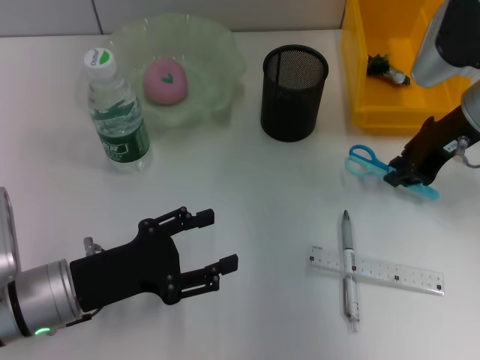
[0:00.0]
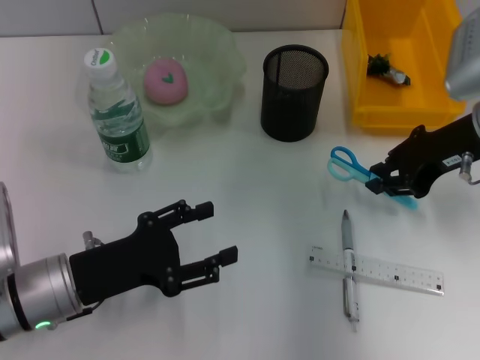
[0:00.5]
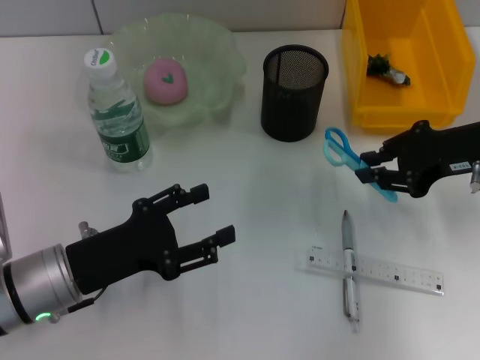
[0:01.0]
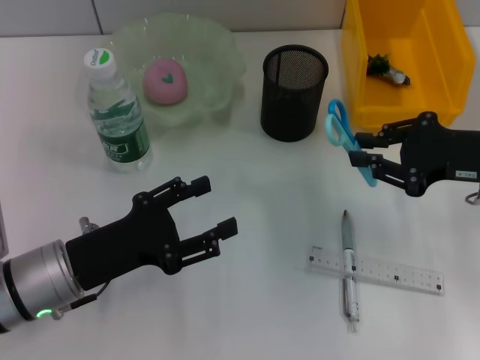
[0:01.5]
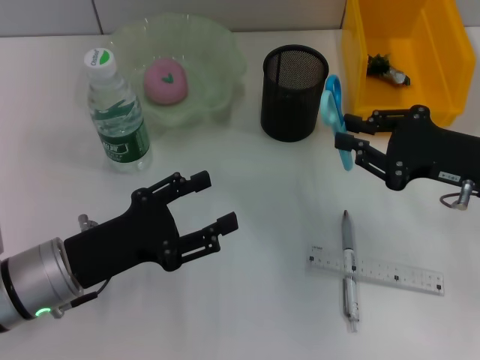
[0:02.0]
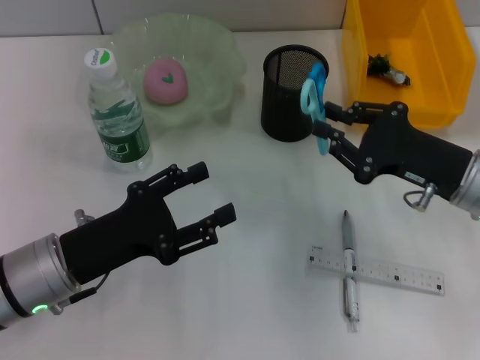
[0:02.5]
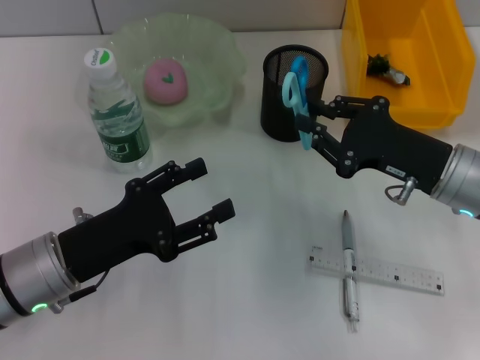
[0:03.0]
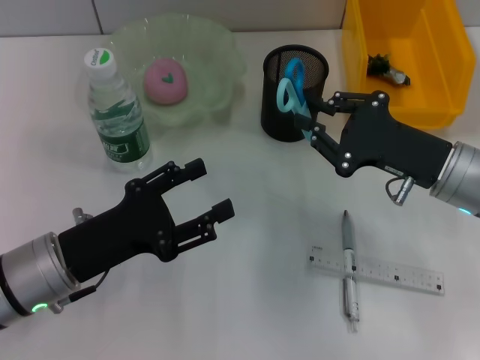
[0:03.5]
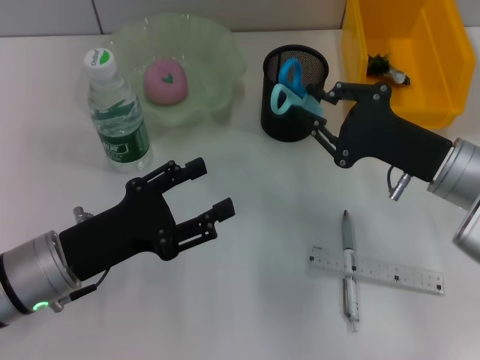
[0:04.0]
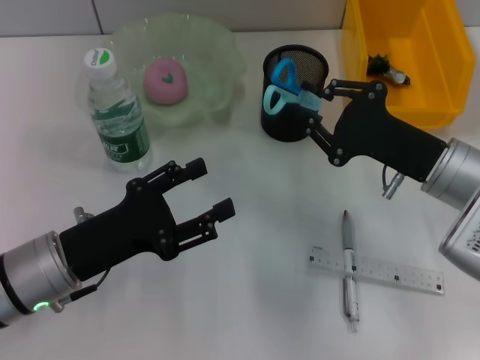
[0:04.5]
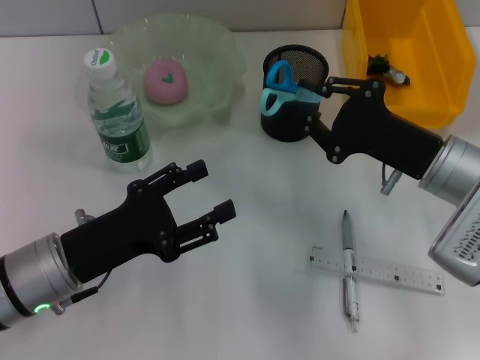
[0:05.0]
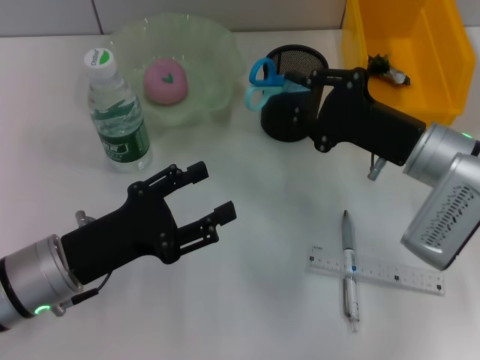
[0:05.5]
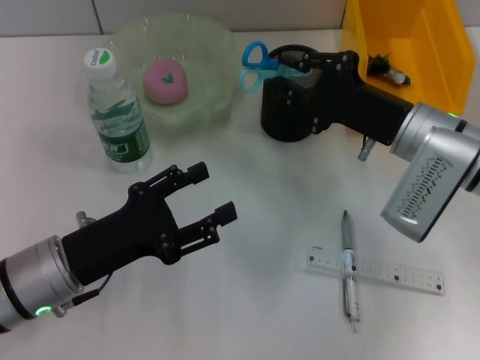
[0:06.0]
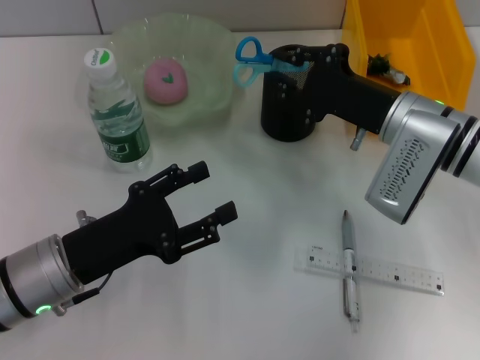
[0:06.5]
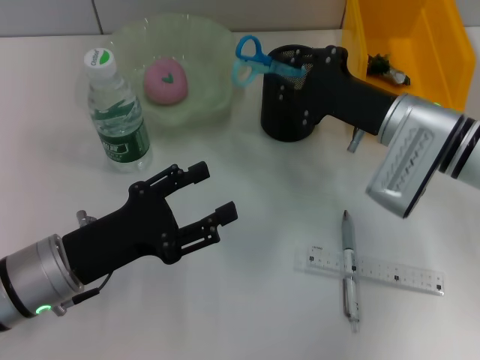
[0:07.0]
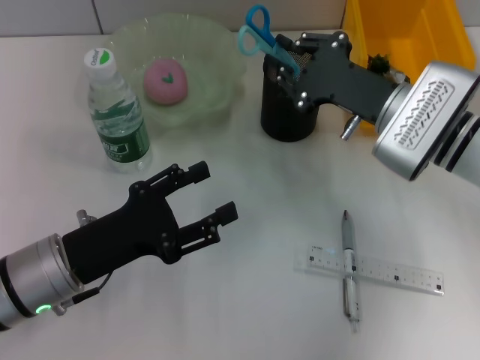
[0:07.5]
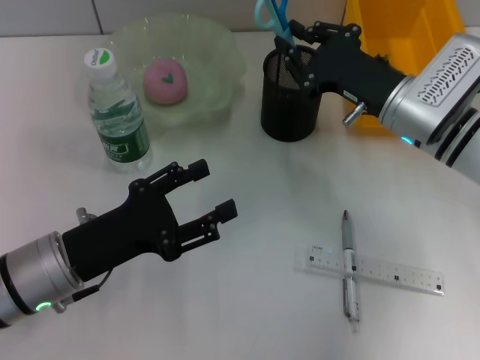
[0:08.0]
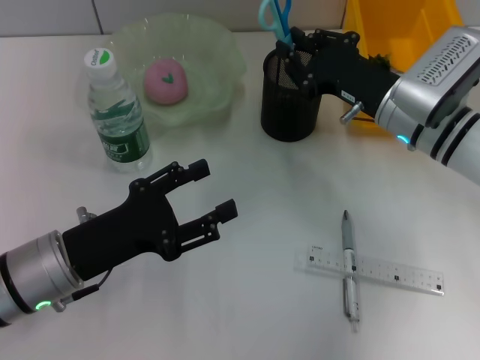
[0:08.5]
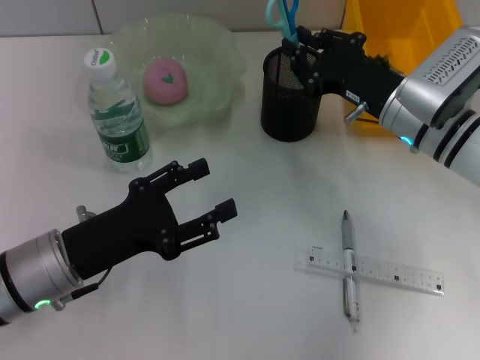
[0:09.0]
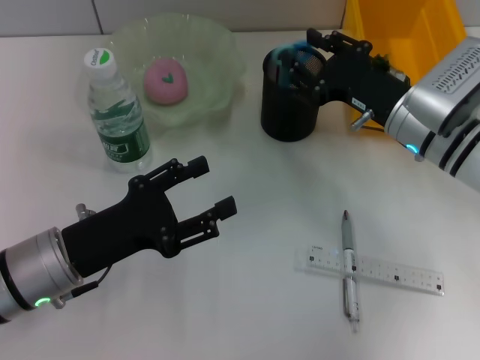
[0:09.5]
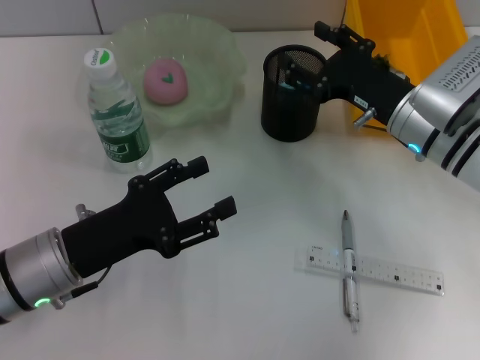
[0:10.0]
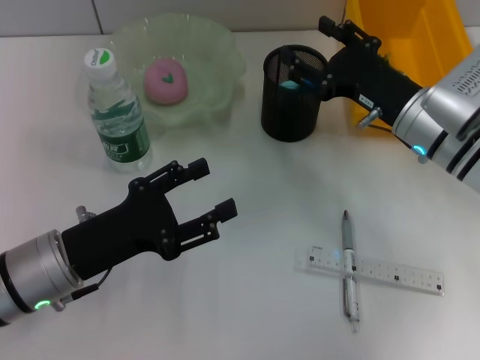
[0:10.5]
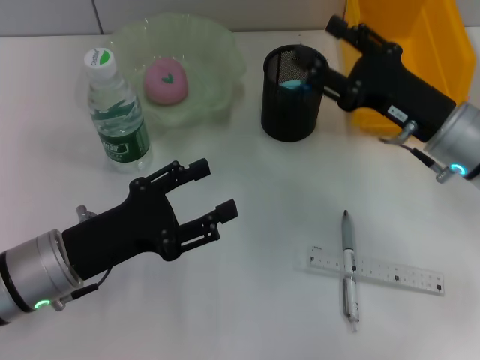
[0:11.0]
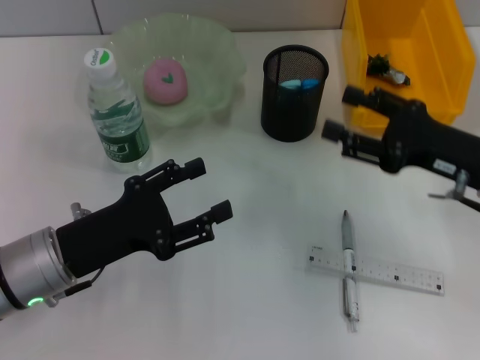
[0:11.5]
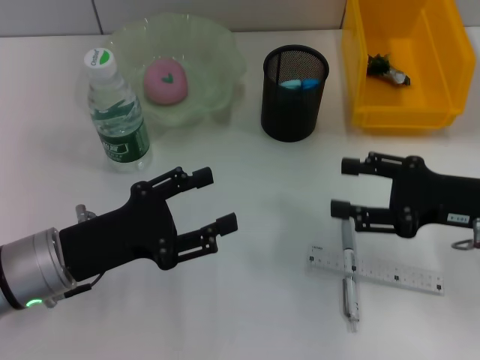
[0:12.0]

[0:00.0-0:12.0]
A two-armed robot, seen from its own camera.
Step, 0:00.0 to 0:10.0: Place the blue scissors into the pen holder with the right hand.
0:00.0 to 0:02.0: The right gripper heads backward and downward, covering some 10 cm.
0:02.0 to 0:04.0: The right gripper shifts by approximately 5 cm.
0:04.0 to 0:06.0: The right gripper moves approximately 5 cm.
0:08.0 to 0:10.0: The right gripper opens its fingers.
0:10.0 to 0:12.0: The right gripper shifts some 10 cm to the right and backward.

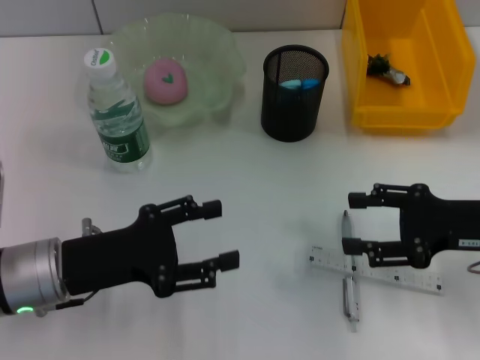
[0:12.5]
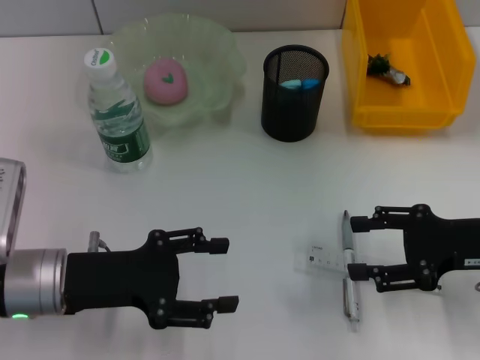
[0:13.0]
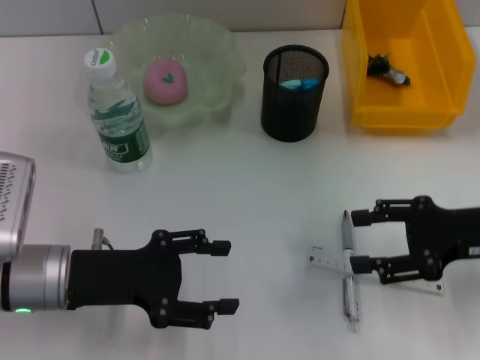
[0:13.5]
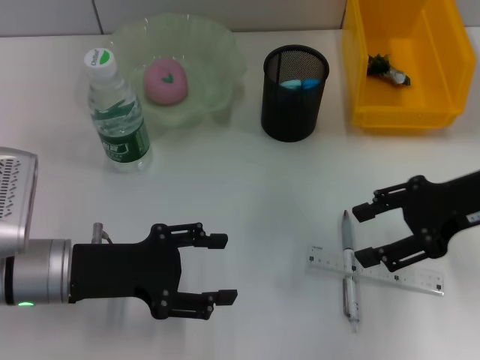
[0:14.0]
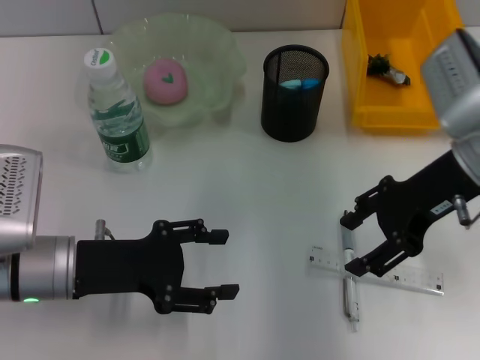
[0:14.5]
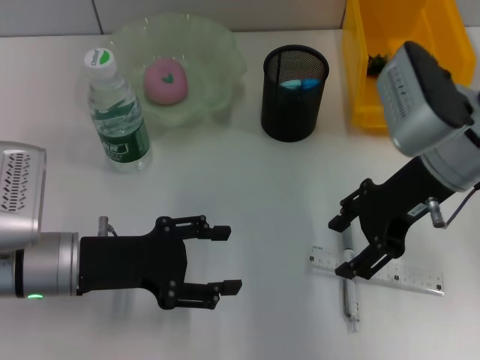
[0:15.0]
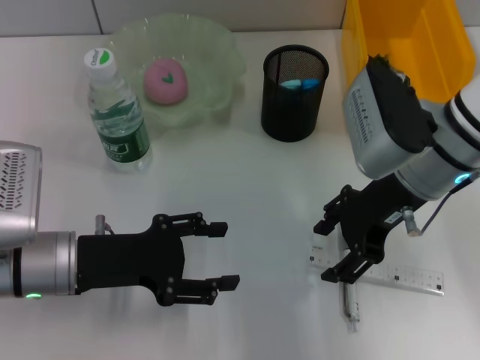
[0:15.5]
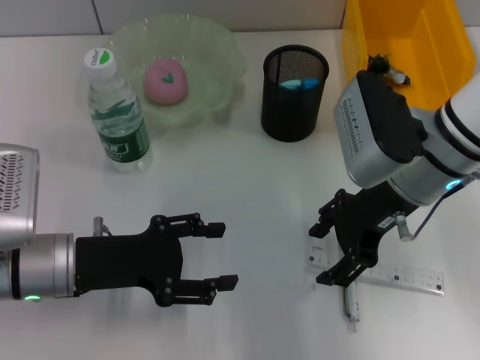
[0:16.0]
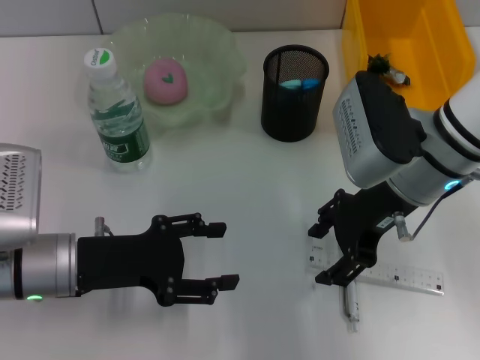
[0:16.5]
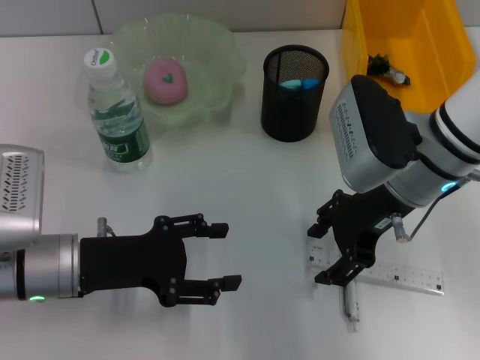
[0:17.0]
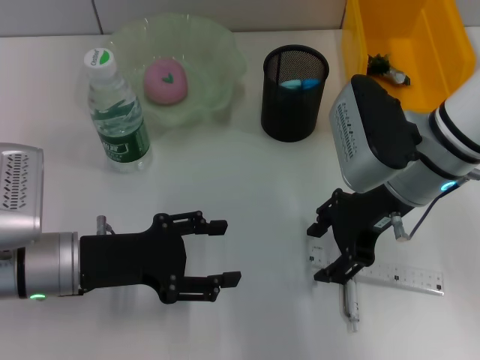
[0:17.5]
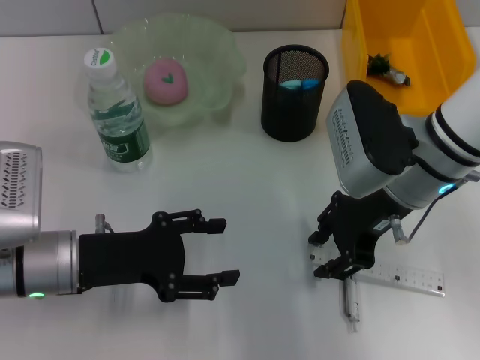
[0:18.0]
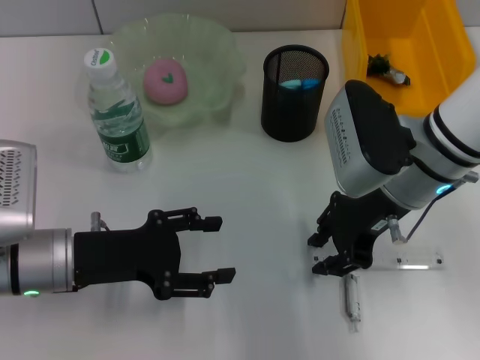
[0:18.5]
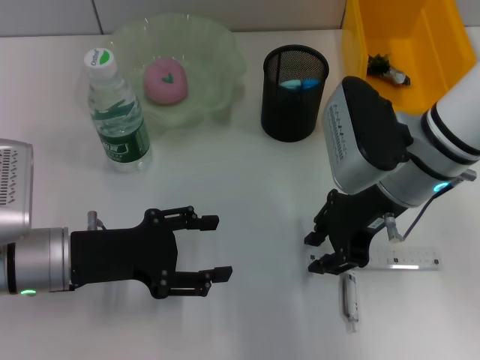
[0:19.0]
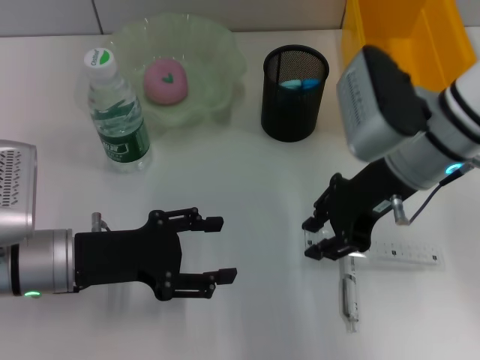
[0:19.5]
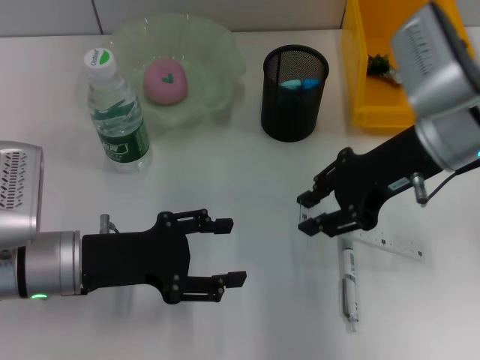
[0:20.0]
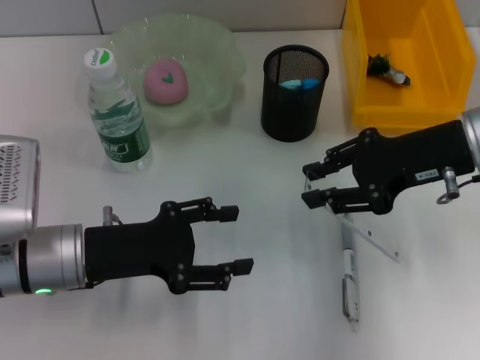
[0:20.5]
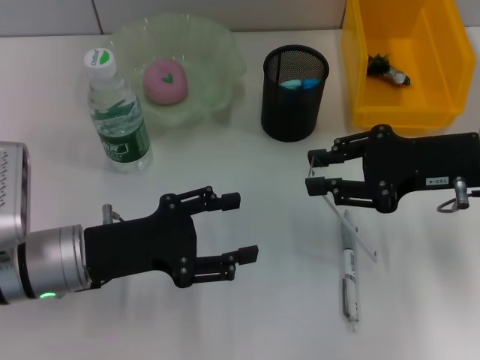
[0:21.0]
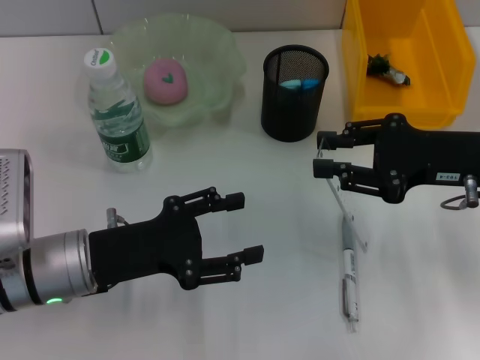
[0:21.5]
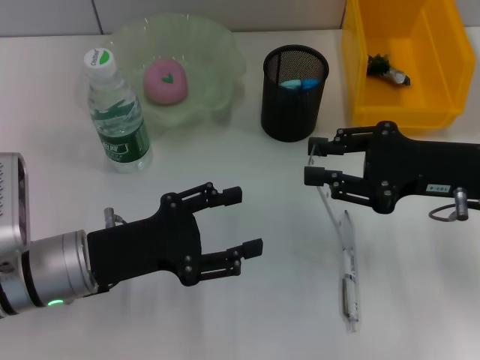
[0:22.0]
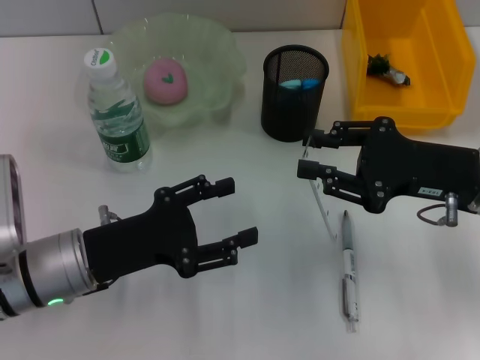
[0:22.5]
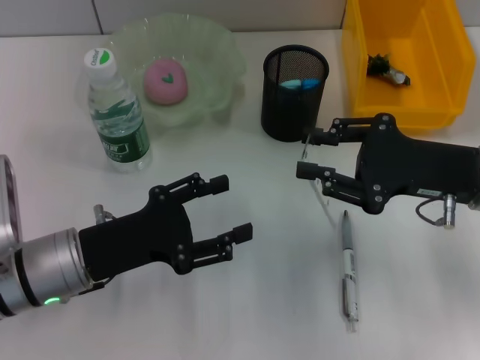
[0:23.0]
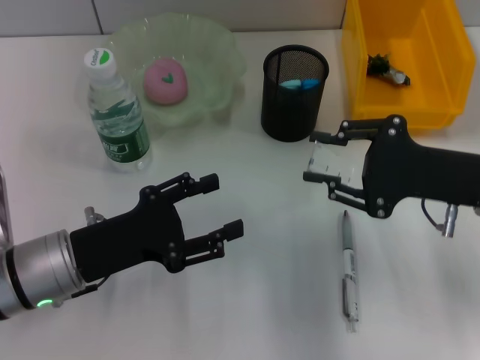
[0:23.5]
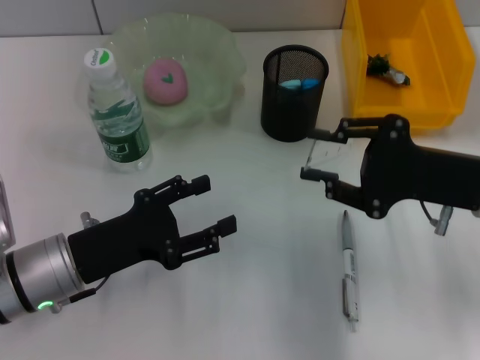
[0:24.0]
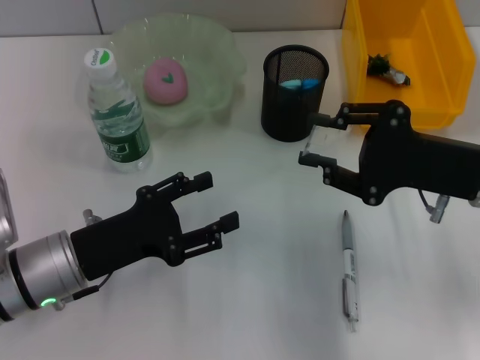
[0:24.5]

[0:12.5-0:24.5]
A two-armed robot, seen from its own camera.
Step, 0:12.5 to 0:18.5: Grab the ruler with the right hand.
0:12.5 to 0:14.5: The right gripper moves upward, to the left and forward, about 10 cm.
0:14.5 to 0:16.5: The right gripper goes roughly 5 cm to the left.
0:16.5 to 0:18.5: The right gripper closes its fingers.
0:18.5 to 0:20.5: The right gripper travels to the right by some 10 cm.
0:20.5 to 0:22.5: The right gripper changes place by some 5 cm.

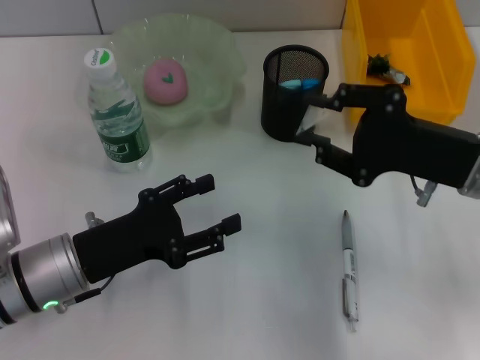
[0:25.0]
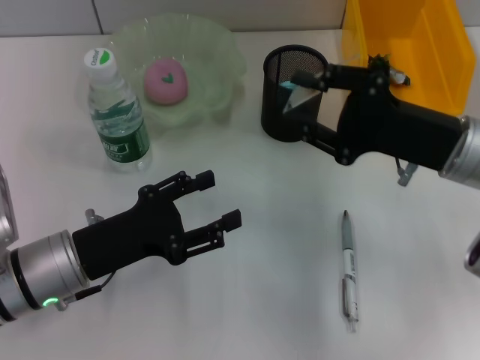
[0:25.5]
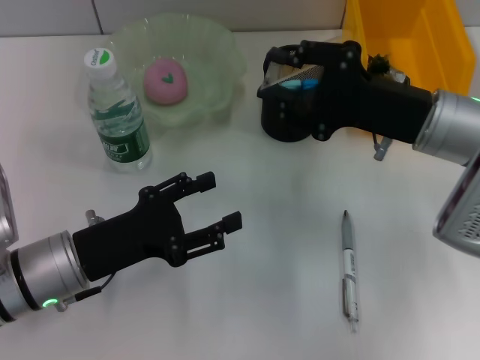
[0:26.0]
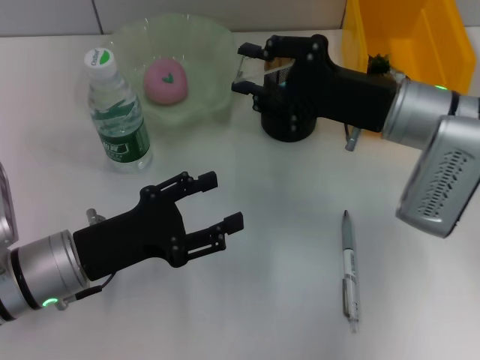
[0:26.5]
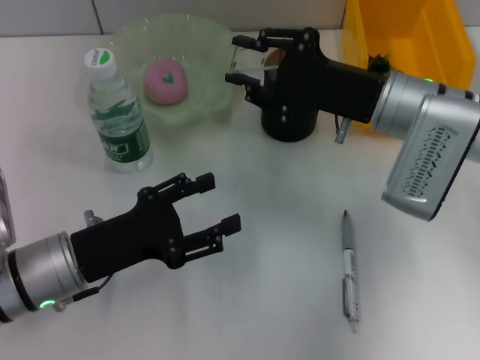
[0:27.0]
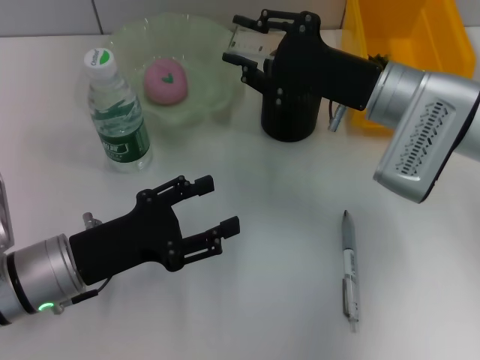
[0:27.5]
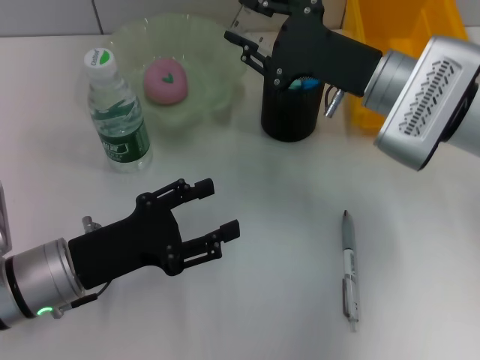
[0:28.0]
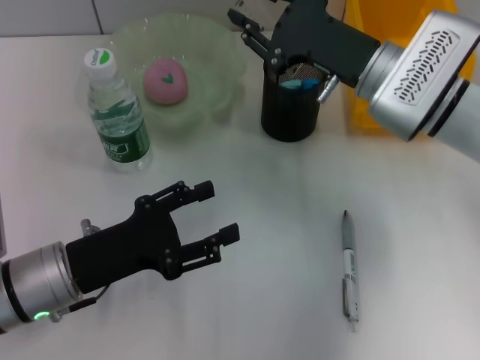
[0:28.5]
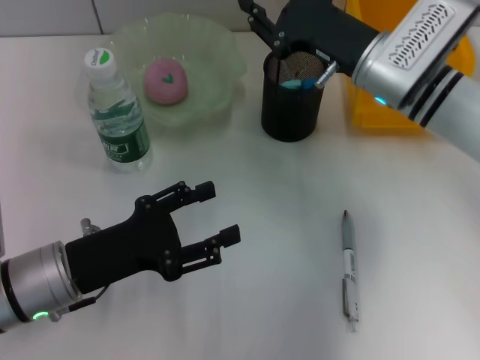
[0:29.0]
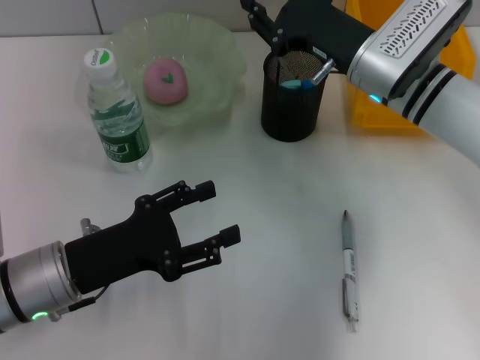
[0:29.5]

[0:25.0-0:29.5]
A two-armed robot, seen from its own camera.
0:25.0 to 0:27.0: The right gripper is displaced to the left and forward by roughly 10 cm.
